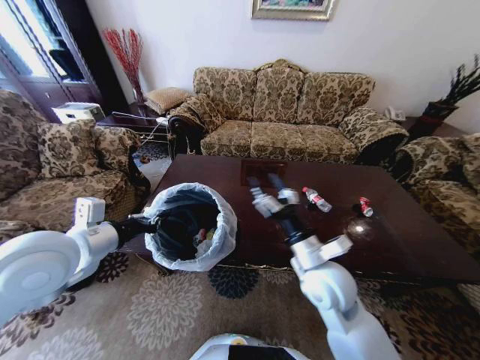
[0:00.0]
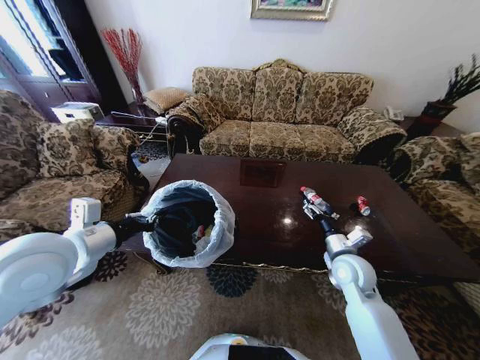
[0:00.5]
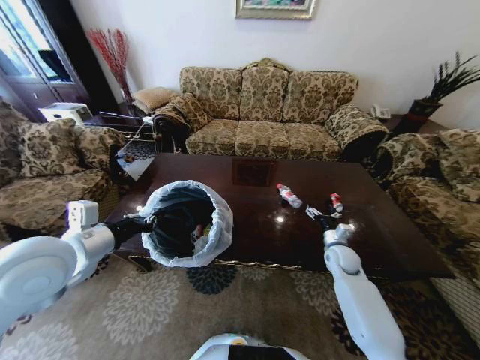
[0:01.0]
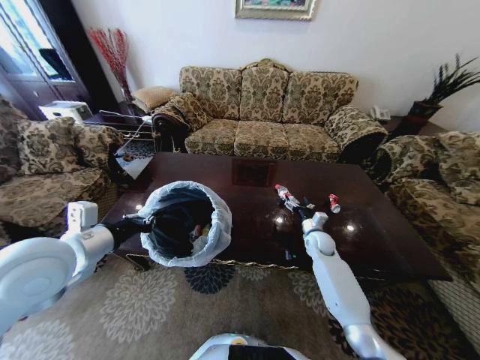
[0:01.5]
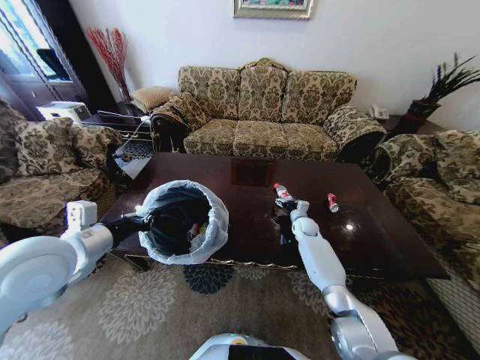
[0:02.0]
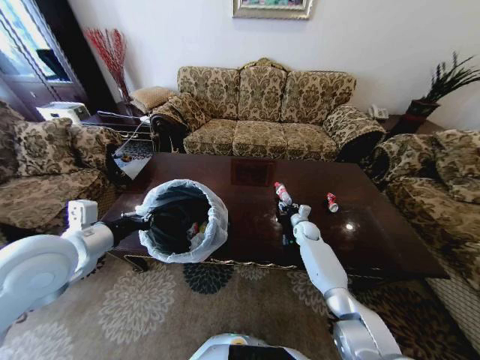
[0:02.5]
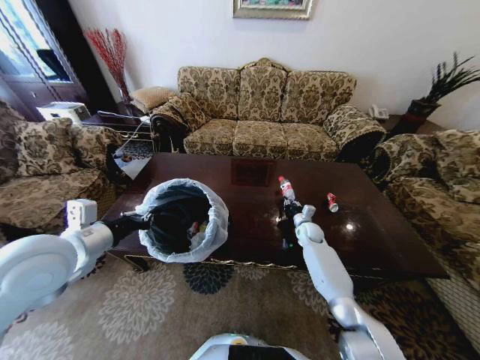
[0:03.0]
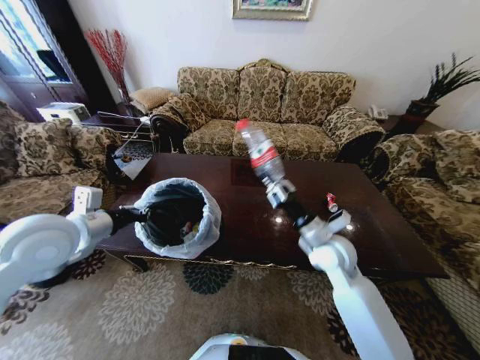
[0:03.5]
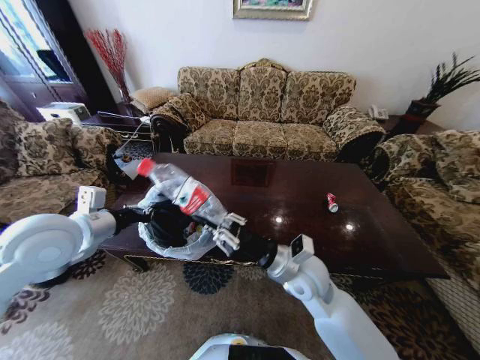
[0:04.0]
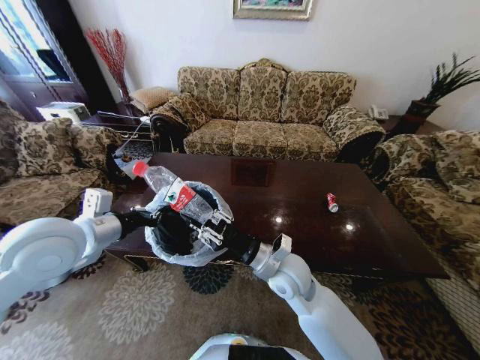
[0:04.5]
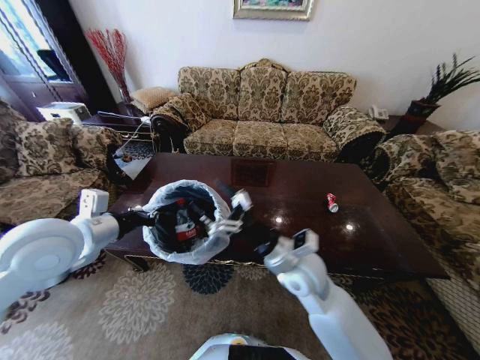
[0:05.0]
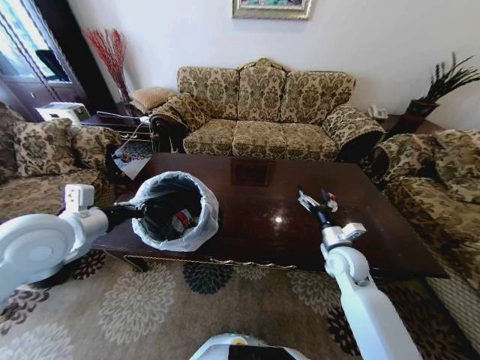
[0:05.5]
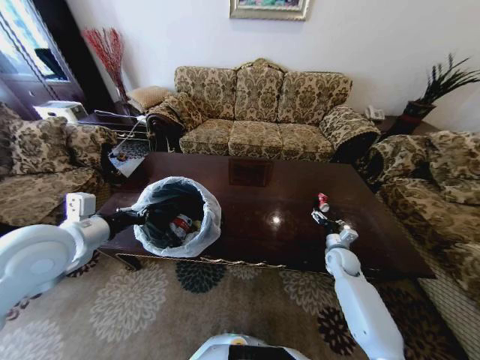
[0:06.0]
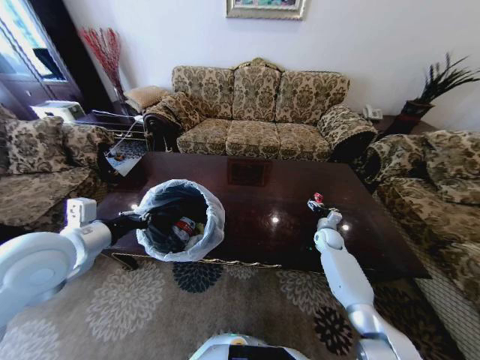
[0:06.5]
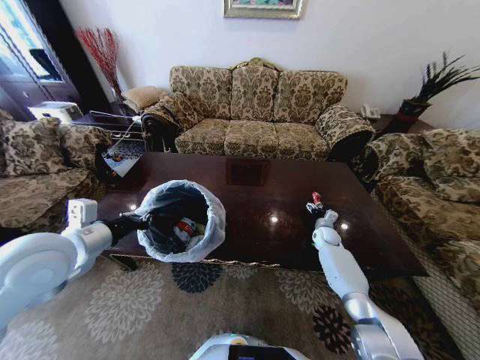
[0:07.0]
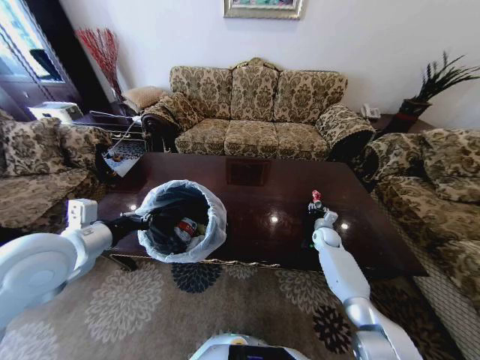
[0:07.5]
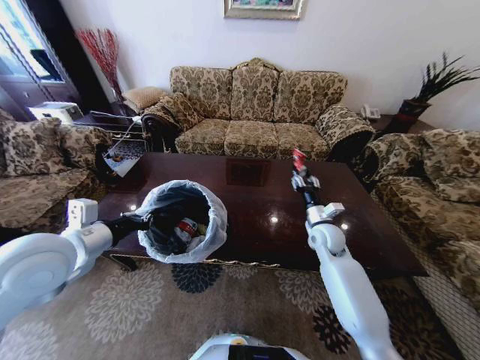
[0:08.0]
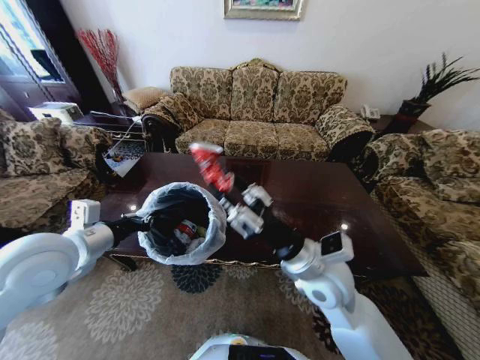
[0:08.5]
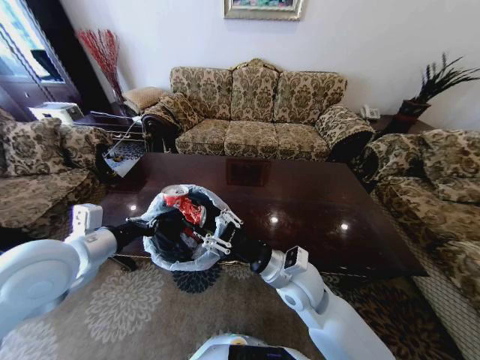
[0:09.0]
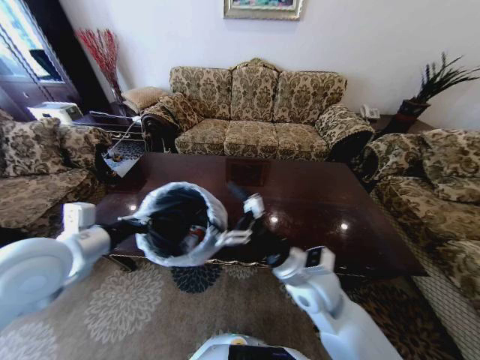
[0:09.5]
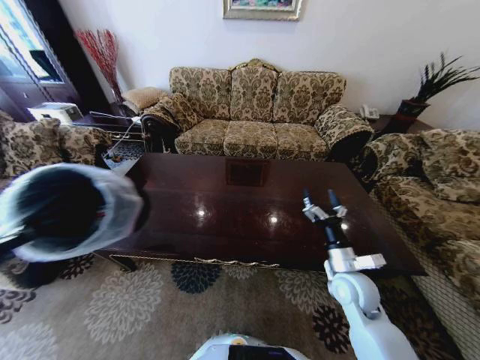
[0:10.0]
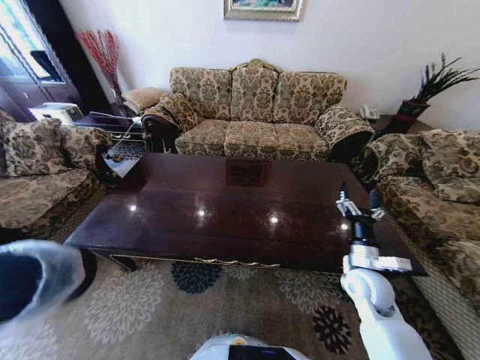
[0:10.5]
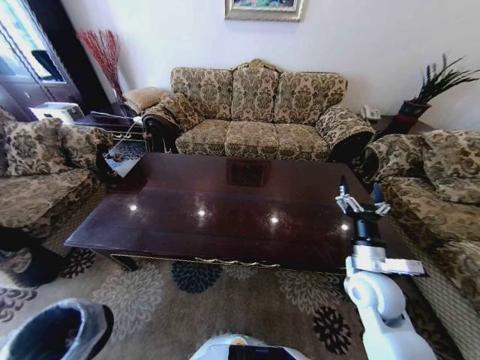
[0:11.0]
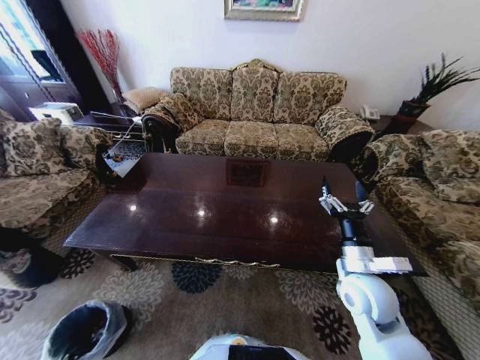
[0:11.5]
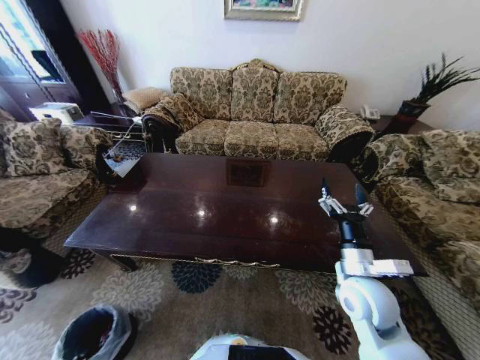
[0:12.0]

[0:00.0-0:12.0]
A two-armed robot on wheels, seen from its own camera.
Task of the whole recording: Move to the front of the table and place the trash on the table into the trash bin.
0:00.0 to 0:02.0: The right gripper shifts some 35 cm forward and downward.
0:02.0 to 0:04.0: The right gripper goes about 35 cm backward, upward and to the left, and closes its fingers.
0:04.0 to 0:06.0: The right gripper shifts roughly 30 cm to the right, downward and forward, and opens up.
0:06.0 to 0:08.0: The right gripper goes some 15 cm upward and to the left, and closes its fingers.
0:08.0 to 0:10.0: The right gripper shifts about 15 cm backward, reaches approximately 15 cm to the left, then returns, and opens its fingers. The left gripper goes roughly 15 cm to the left and backward.
0:10.0 to 0:12.0: The left gripper moves downward, some 50 cm. The right gripper moves upward, about 5 cm.

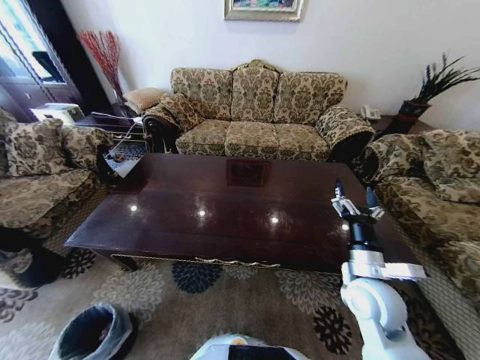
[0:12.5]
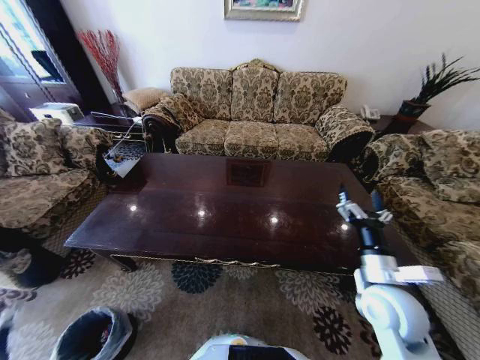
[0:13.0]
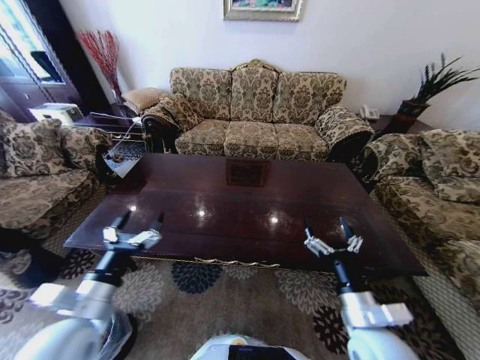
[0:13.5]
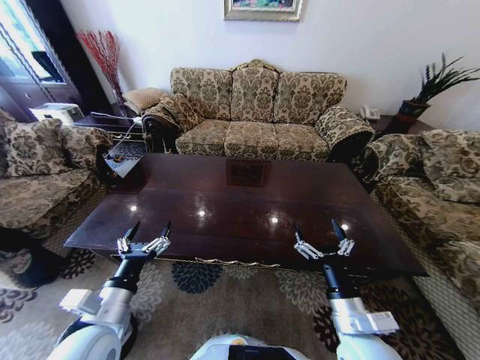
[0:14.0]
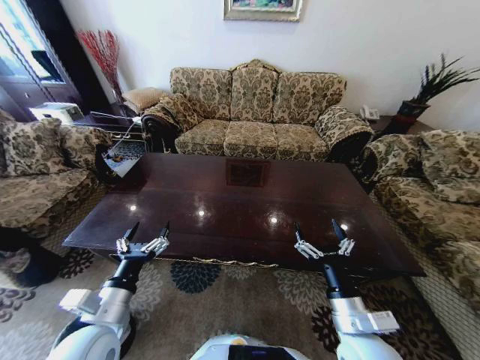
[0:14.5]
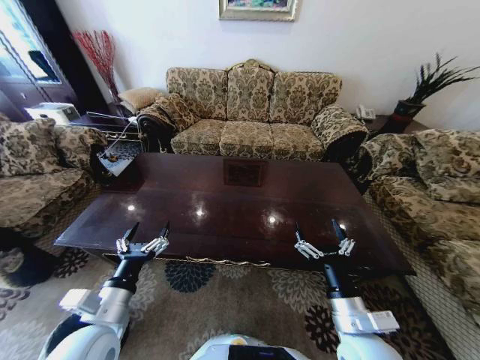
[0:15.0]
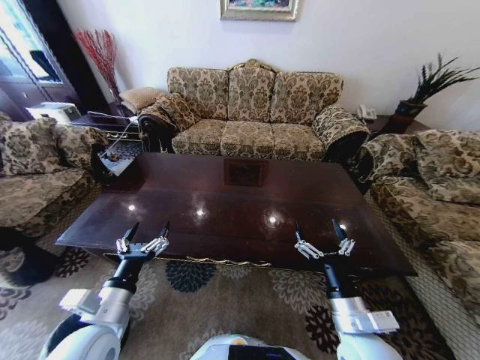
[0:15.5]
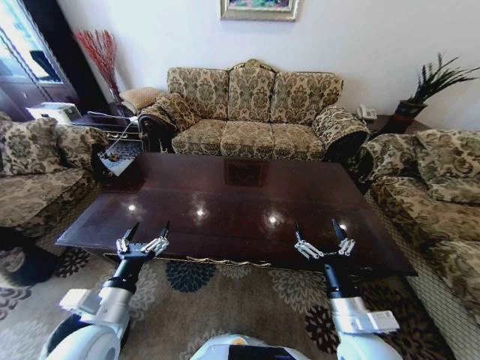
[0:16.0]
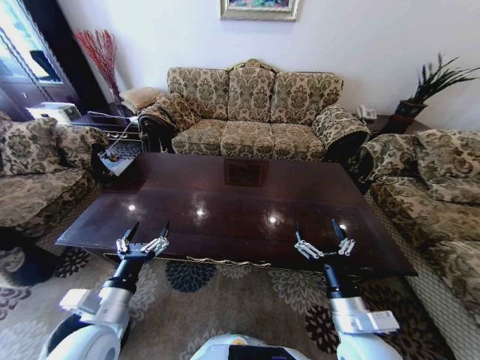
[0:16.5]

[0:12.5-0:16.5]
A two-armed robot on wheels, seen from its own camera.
Task of the whole recording: Move to the front of the table and place the trash on the table into the trash bin.
0:12.5 to 0:14.5: The left gripper is displaced upward, to the right and forward by approximately 40 cm. Meanwhile the right gripper travels backward by roughly 10 cm.
0:14.5 to 0:16.5: Both grippers stay put.
